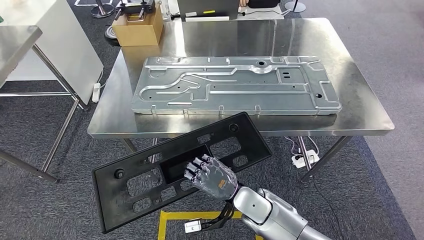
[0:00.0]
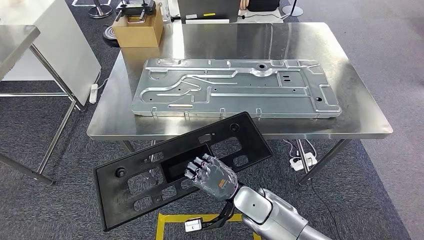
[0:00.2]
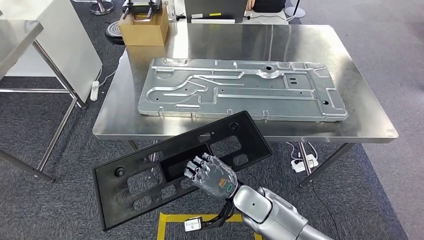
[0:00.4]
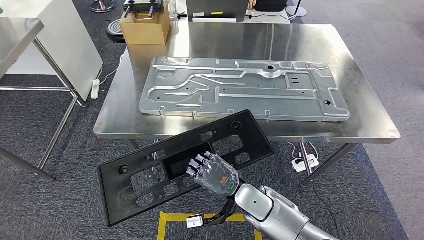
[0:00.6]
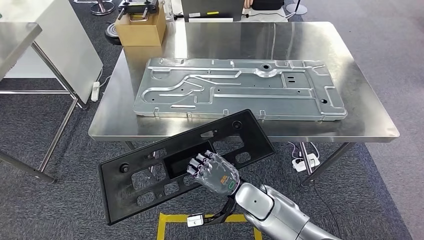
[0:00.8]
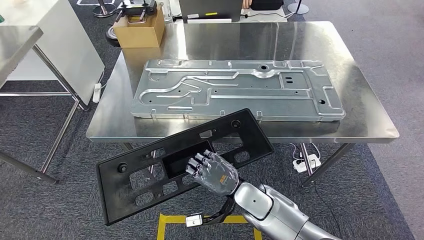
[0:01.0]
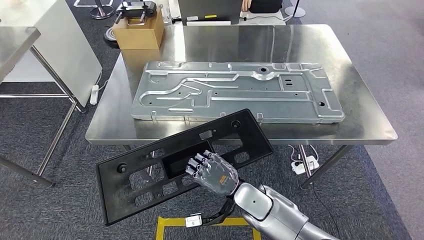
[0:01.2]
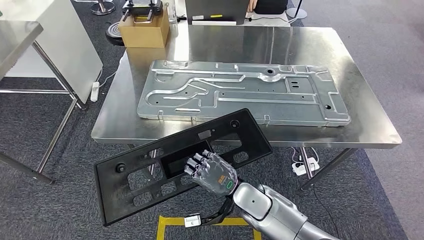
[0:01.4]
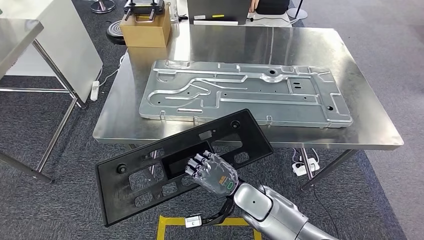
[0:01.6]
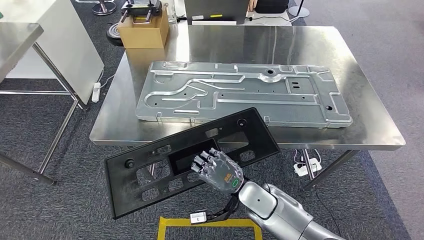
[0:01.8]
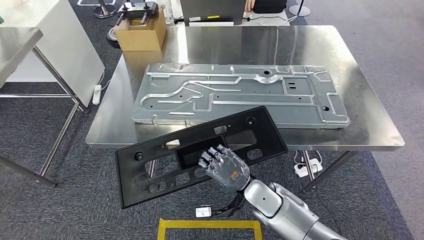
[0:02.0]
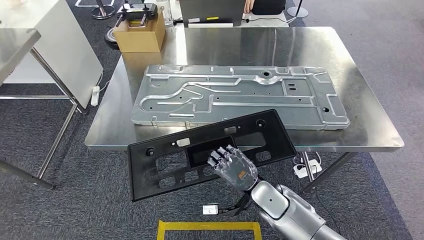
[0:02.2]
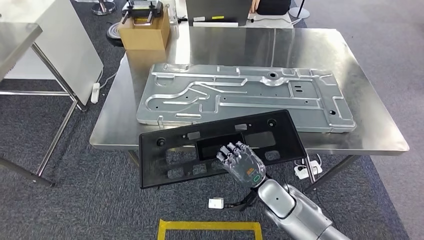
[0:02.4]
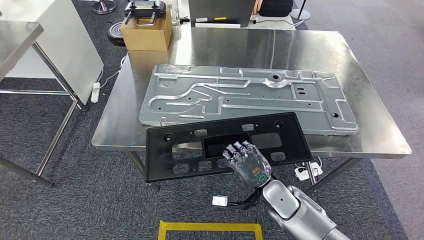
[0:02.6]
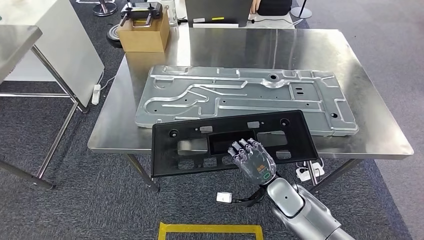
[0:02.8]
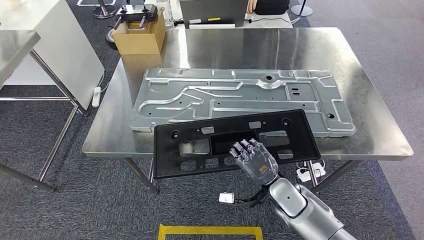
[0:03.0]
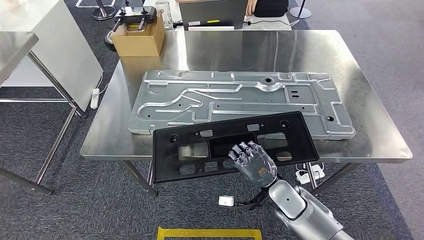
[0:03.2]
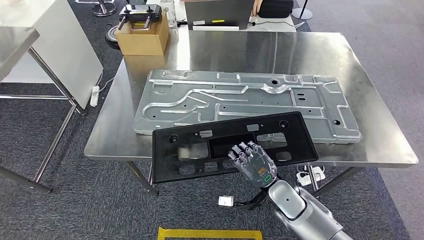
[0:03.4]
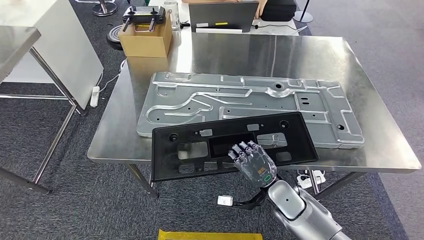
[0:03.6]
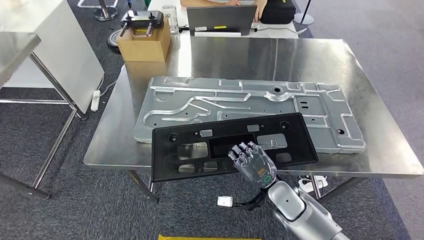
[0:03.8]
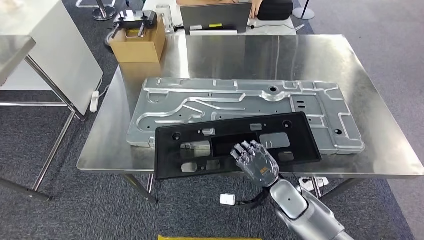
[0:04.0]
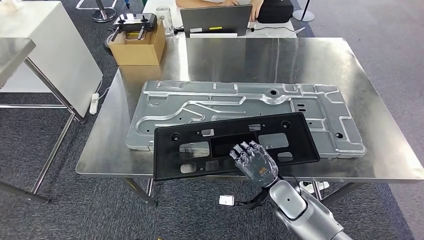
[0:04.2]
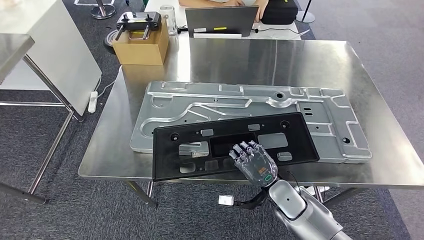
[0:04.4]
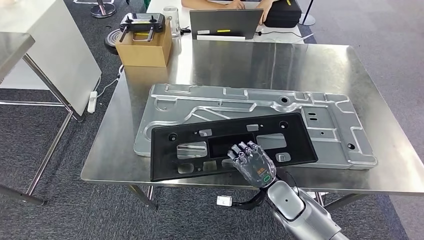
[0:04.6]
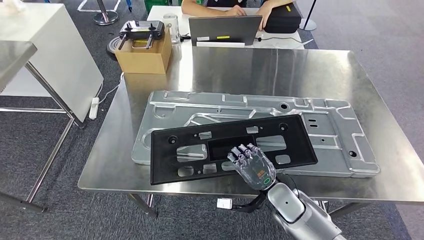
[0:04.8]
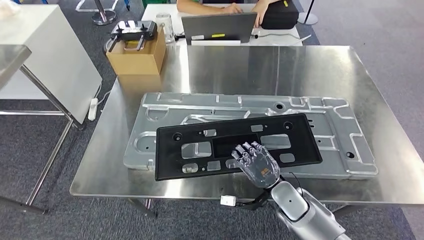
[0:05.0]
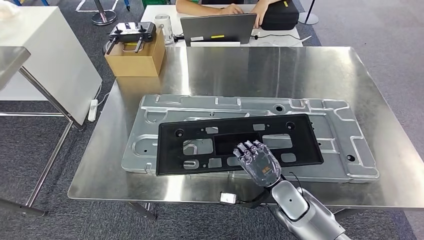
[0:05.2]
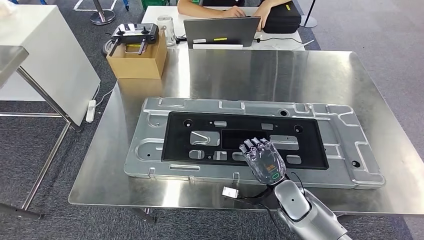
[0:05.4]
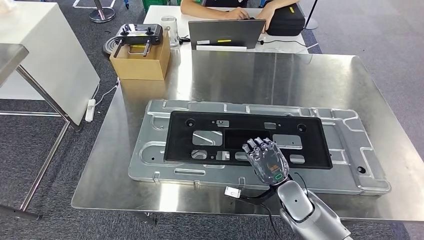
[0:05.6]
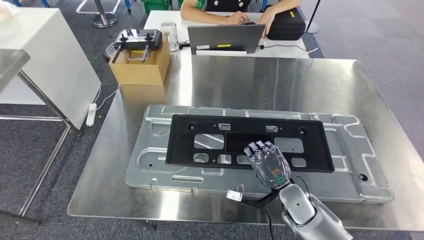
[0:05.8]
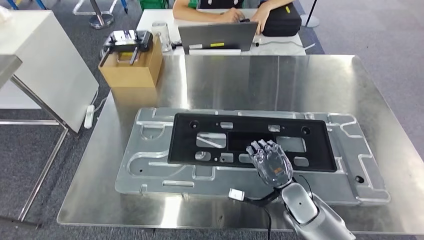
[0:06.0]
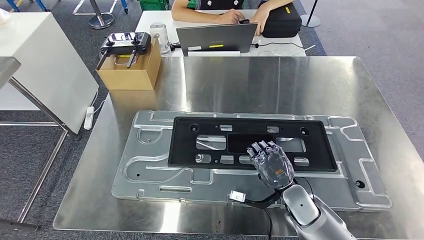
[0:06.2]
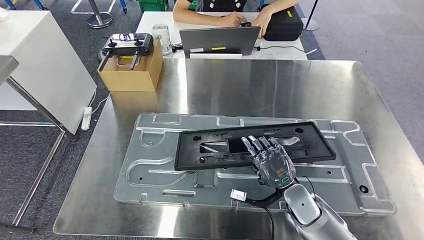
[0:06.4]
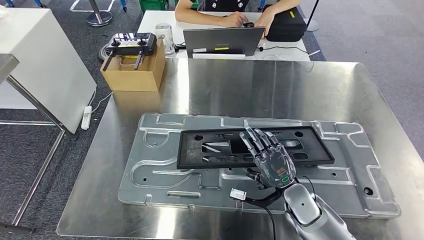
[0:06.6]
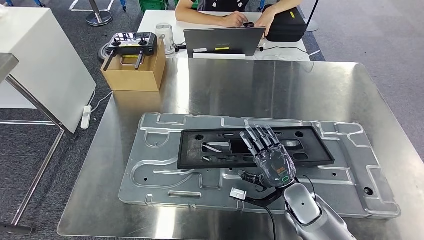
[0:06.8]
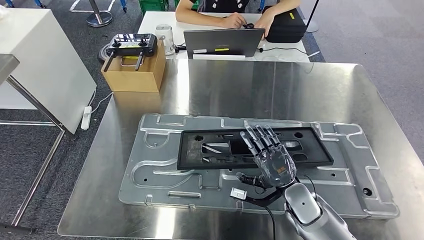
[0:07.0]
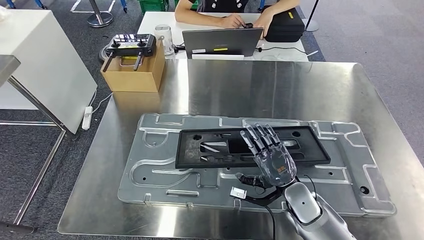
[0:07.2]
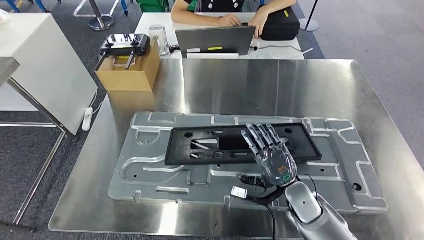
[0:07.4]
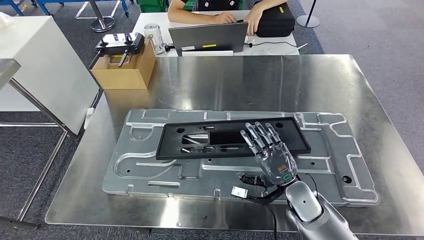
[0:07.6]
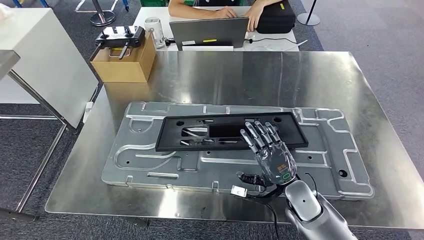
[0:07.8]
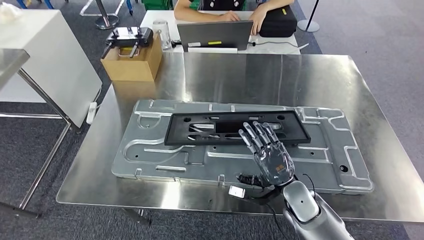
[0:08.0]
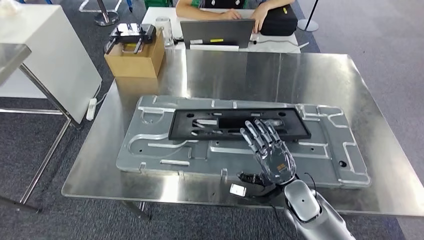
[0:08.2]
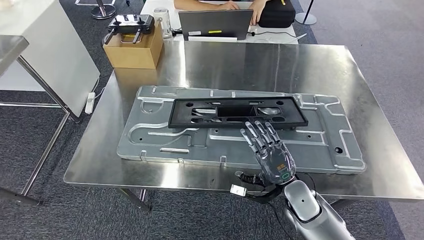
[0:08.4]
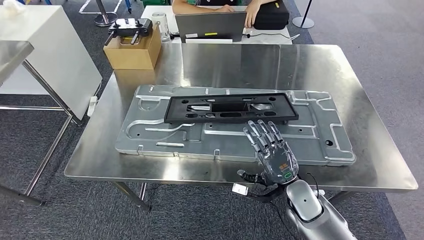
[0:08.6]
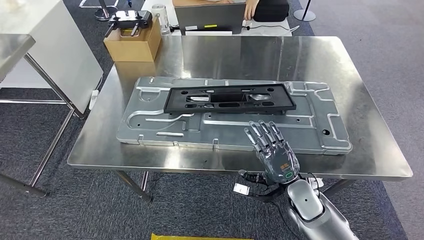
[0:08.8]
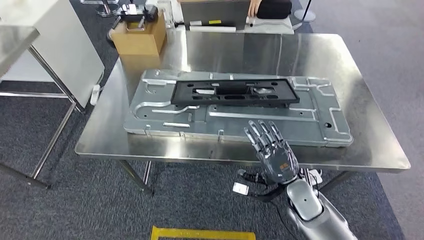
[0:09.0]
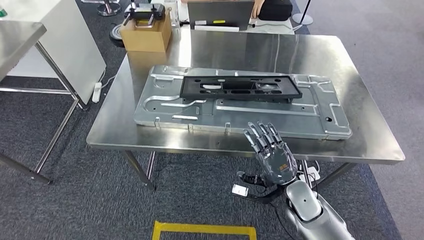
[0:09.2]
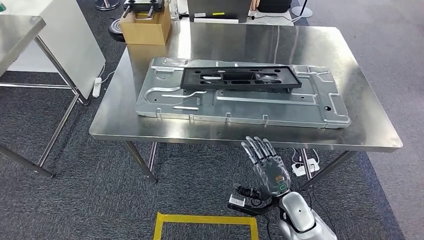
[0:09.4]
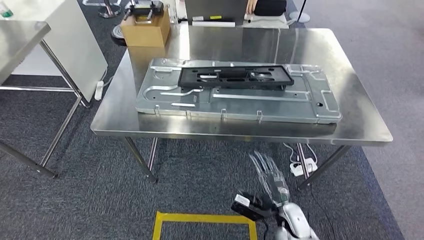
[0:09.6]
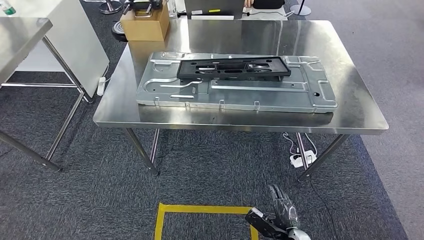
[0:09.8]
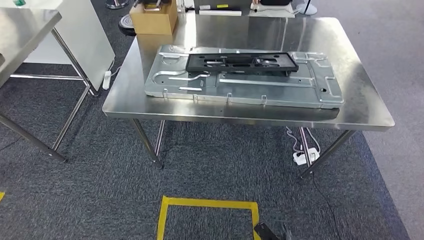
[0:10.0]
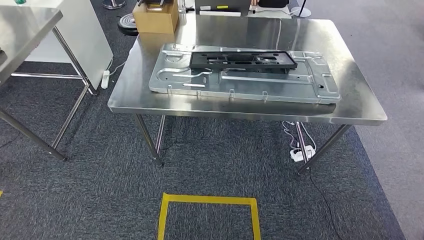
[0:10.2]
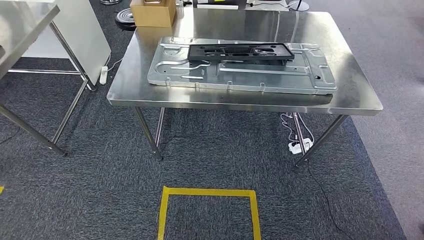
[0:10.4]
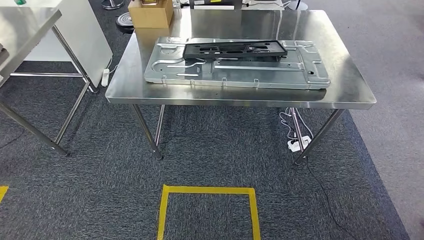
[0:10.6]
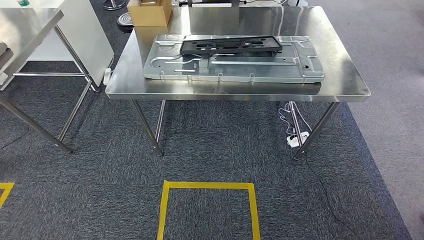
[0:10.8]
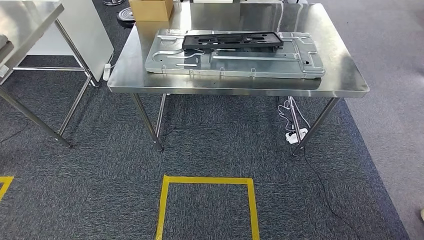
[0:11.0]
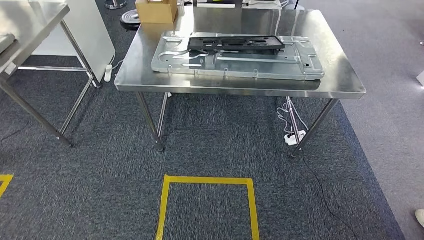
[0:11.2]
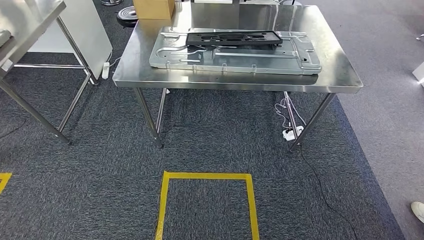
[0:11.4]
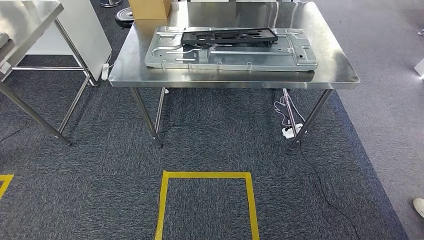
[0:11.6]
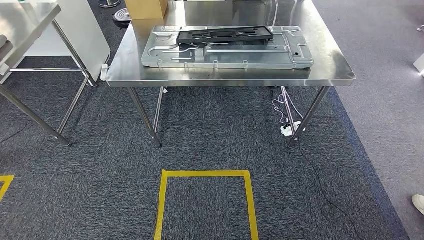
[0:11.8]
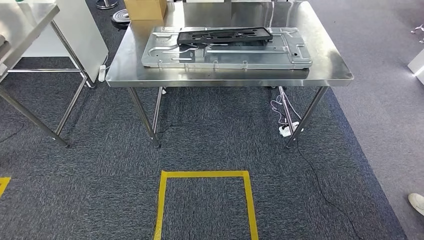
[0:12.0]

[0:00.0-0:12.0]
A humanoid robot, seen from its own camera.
Step, 0:00.0 to 0:06.8: Insert the large material into the corresponding slot on the workbench.

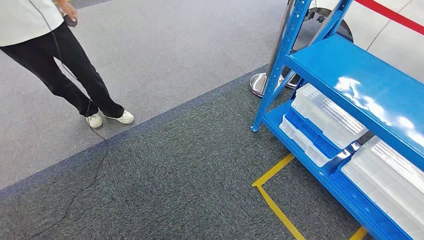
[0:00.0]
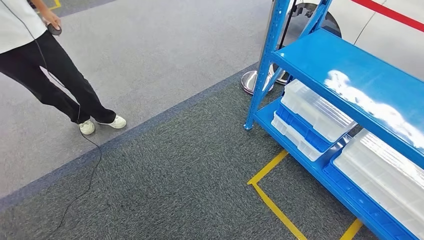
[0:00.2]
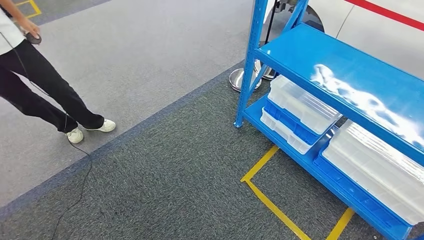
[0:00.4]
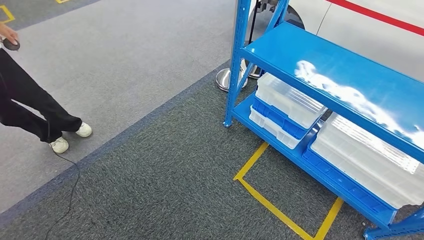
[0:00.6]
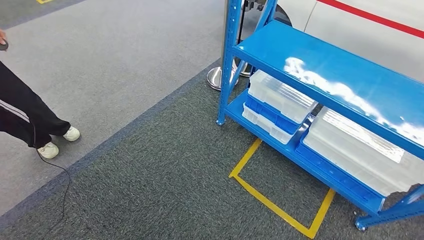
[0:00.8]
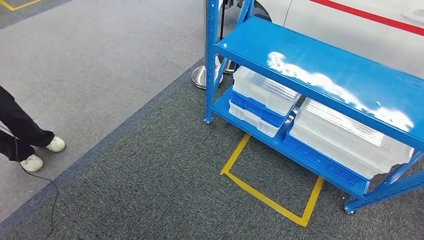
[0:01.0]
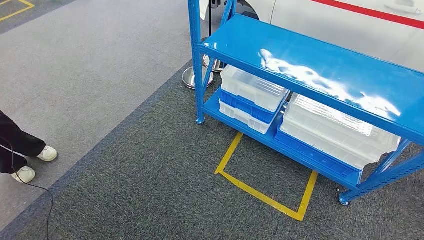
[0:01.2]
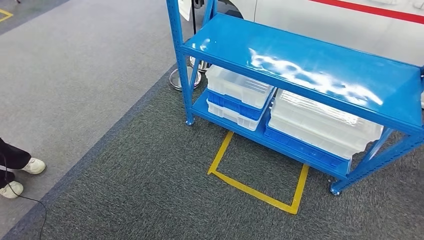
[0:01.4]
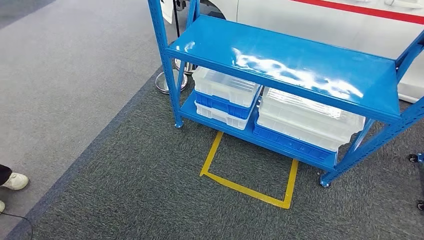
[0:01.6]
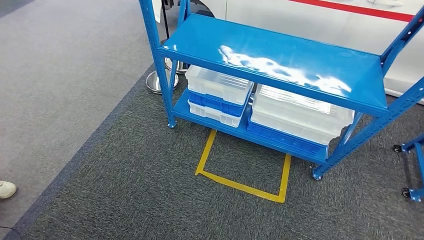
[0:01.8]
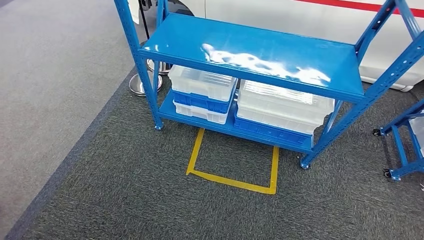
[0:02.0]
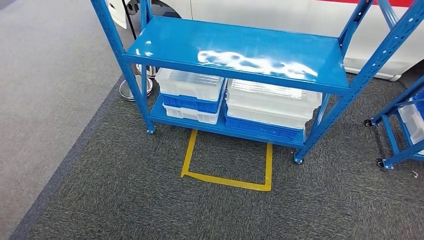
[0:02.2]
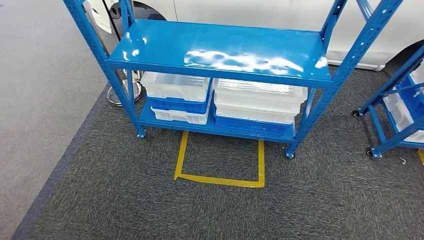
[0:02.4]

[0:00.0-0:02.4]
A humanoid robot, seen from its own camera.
Step, 0:00.0 to 0:02.4: Move to the initial position of the shelf.

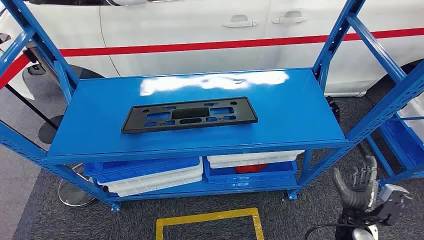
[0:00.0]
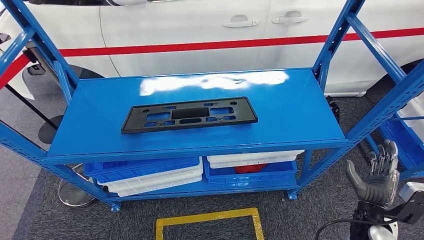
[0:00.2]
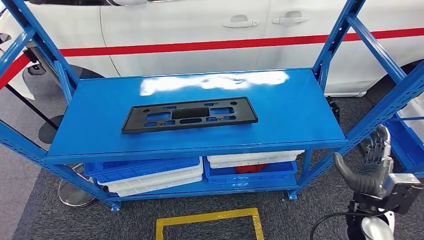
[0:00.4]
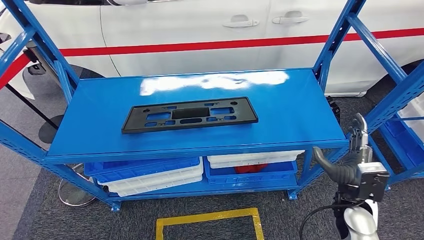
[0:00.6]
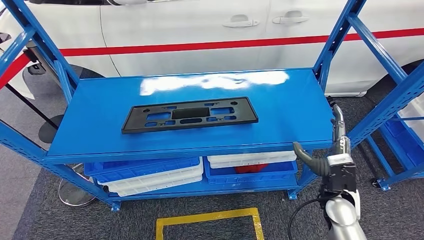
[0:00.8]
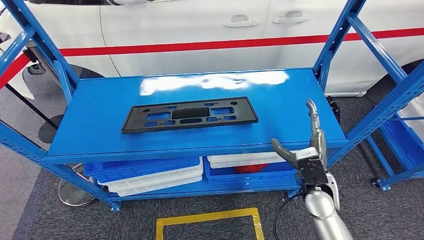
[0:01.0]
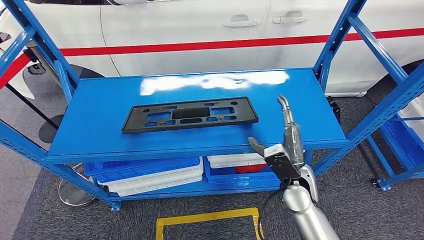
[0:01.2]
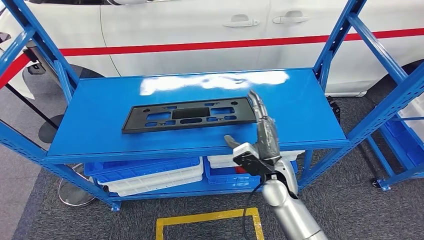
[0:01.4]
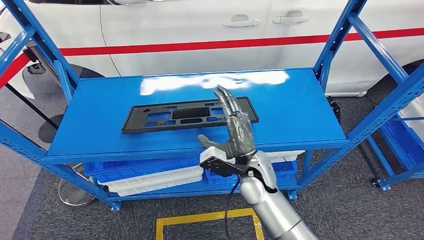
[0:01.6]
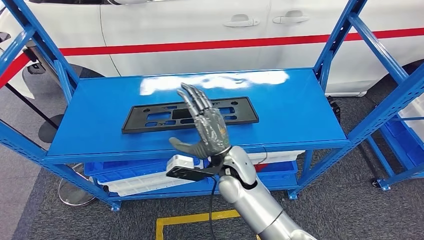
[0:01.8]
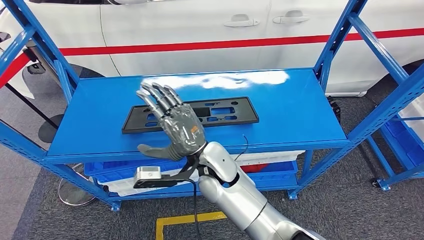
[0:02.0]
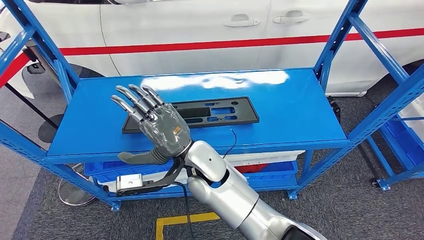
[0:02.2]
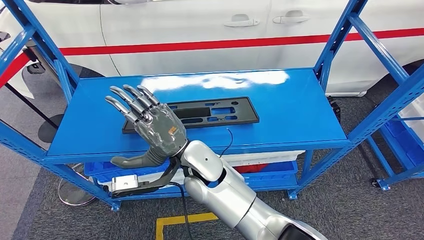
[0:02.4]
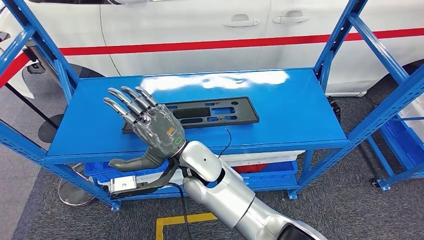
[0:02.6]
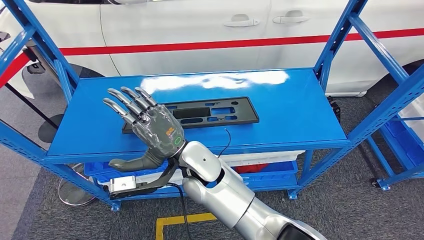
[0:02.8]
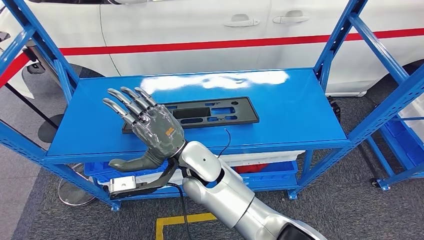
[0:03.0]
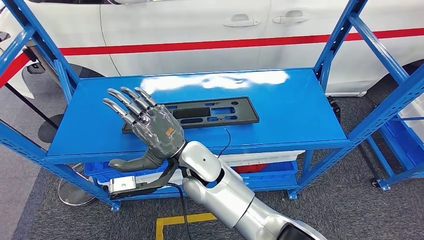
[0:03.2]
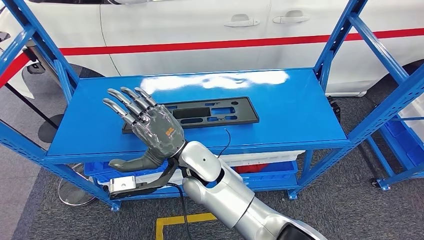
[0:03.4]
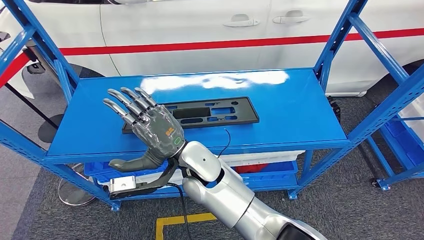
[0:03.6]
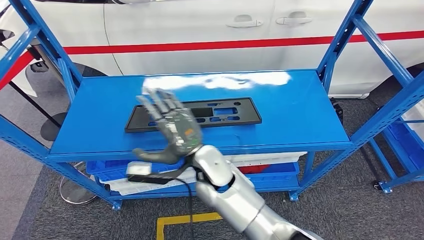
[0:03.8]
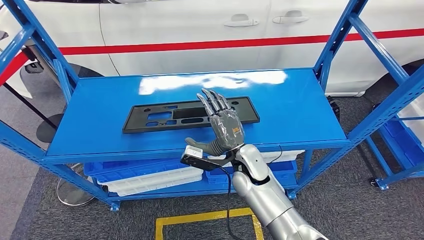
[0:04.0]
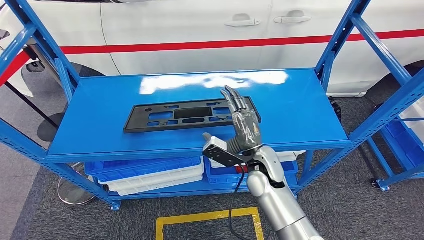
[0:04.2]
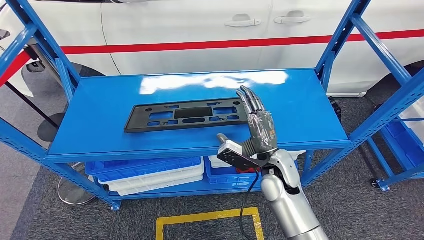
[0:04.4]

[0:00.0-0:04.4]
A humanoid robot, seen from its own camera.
0:01.4 to 0:03.0: The right hand travels to the left and upward by roughly 20 cm.
0:03.0 to 0:04.4: The right hand shifts some 20 cm to the right.
